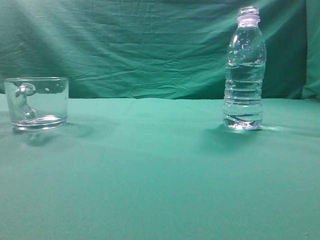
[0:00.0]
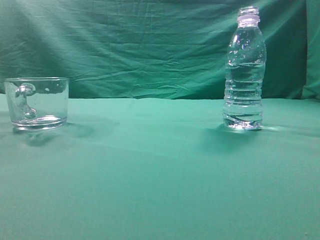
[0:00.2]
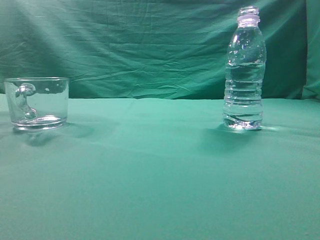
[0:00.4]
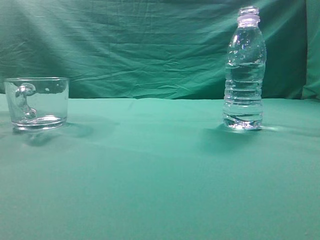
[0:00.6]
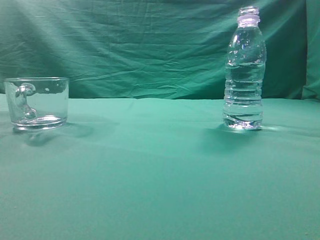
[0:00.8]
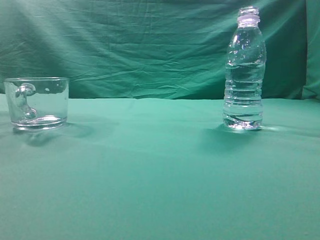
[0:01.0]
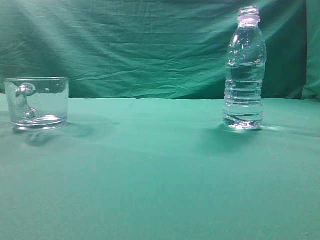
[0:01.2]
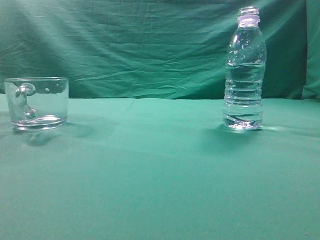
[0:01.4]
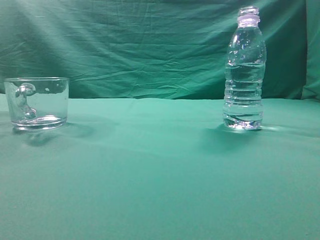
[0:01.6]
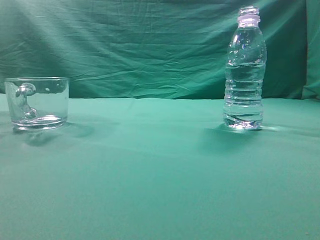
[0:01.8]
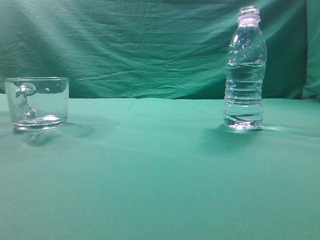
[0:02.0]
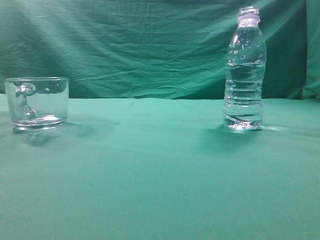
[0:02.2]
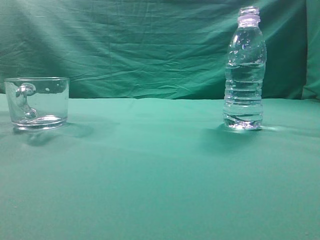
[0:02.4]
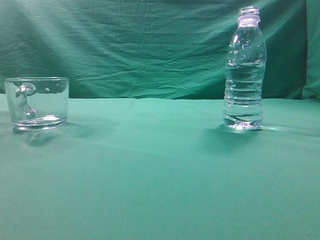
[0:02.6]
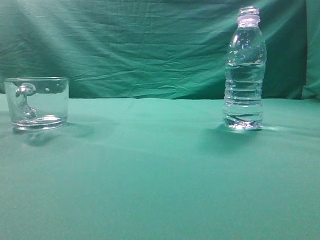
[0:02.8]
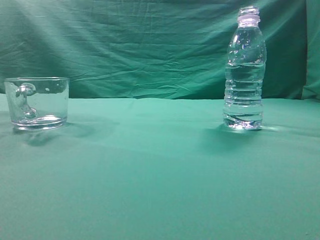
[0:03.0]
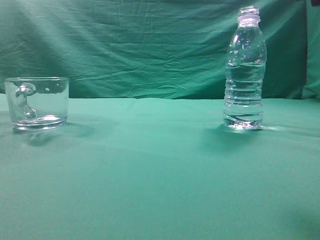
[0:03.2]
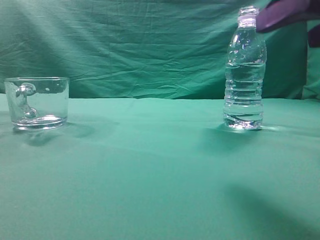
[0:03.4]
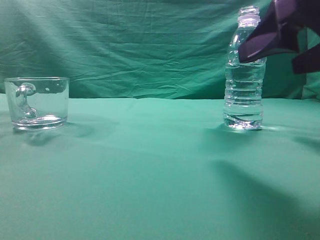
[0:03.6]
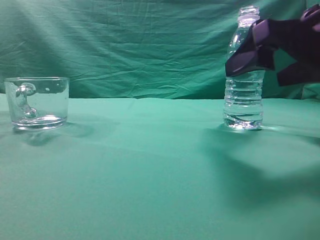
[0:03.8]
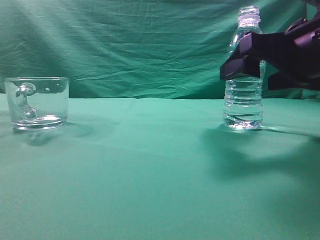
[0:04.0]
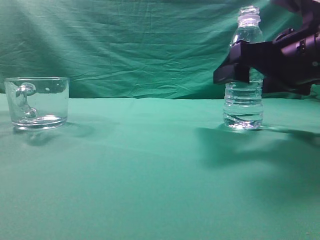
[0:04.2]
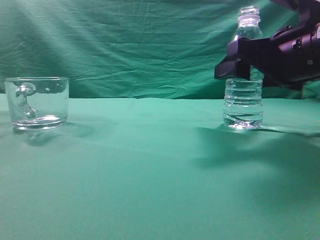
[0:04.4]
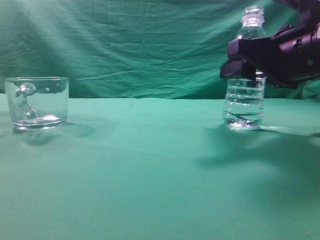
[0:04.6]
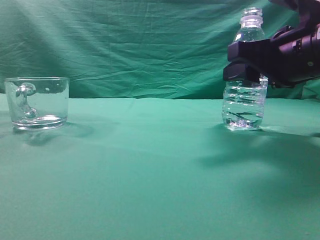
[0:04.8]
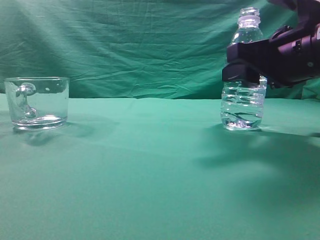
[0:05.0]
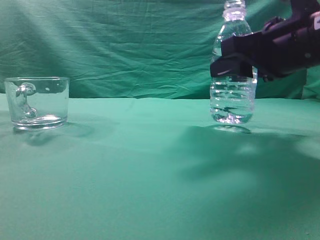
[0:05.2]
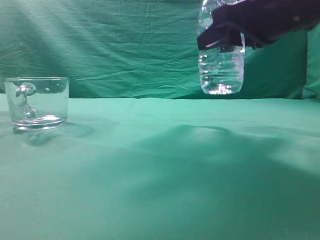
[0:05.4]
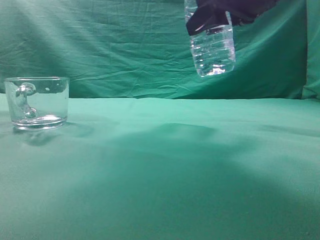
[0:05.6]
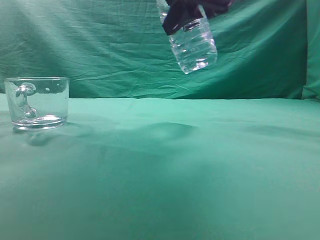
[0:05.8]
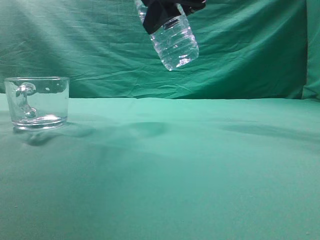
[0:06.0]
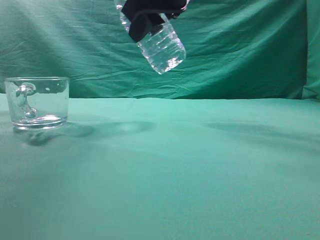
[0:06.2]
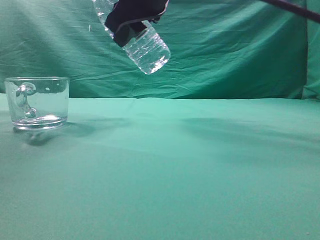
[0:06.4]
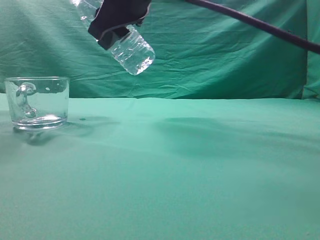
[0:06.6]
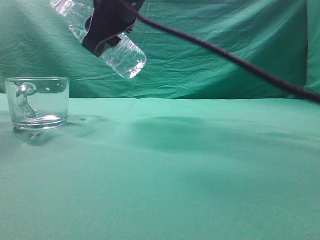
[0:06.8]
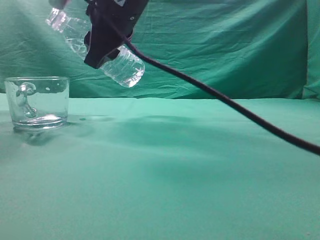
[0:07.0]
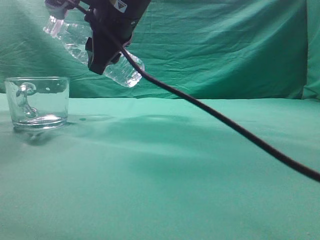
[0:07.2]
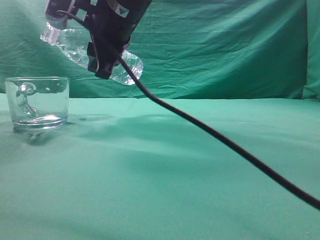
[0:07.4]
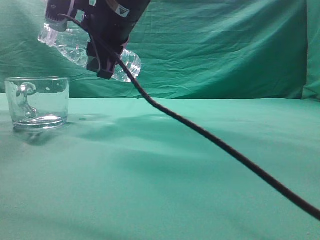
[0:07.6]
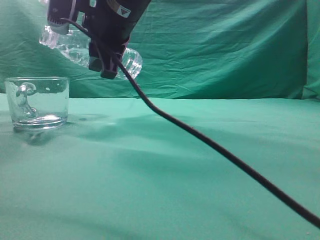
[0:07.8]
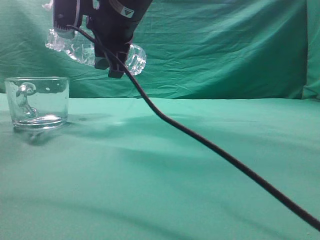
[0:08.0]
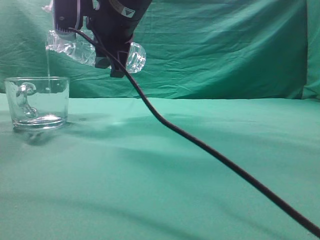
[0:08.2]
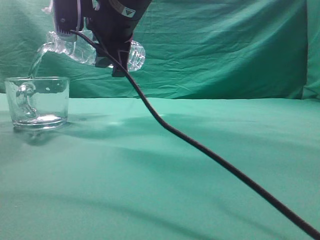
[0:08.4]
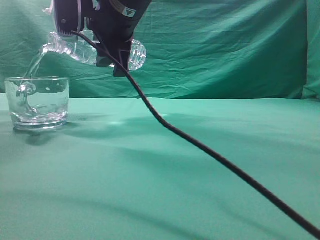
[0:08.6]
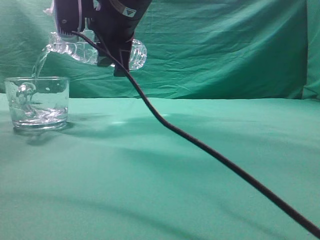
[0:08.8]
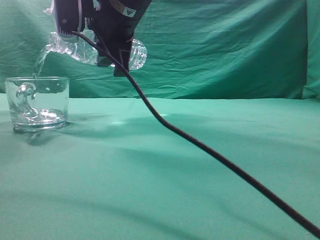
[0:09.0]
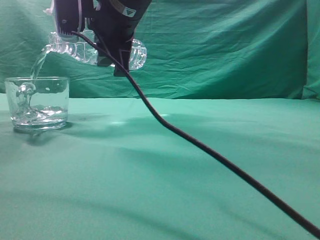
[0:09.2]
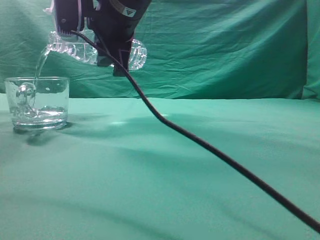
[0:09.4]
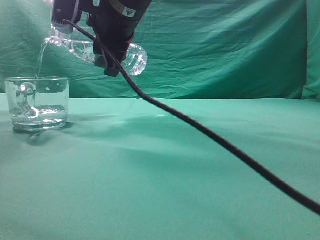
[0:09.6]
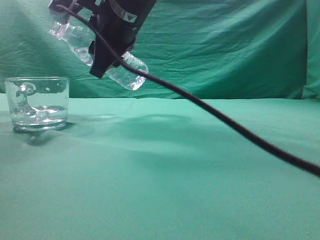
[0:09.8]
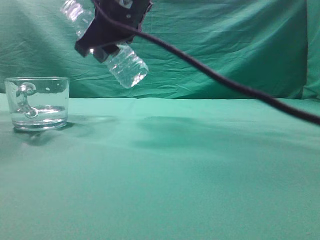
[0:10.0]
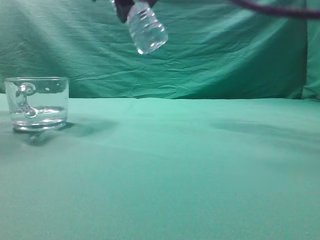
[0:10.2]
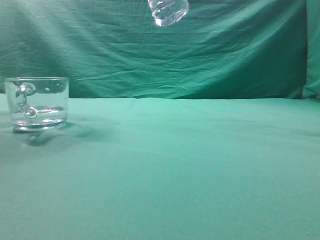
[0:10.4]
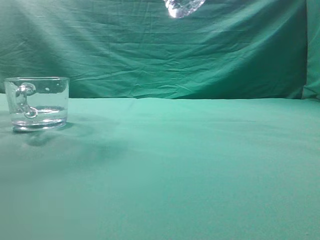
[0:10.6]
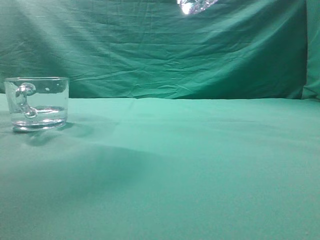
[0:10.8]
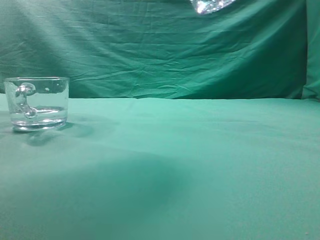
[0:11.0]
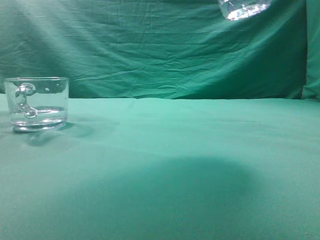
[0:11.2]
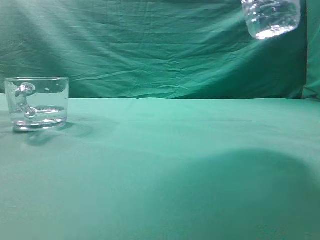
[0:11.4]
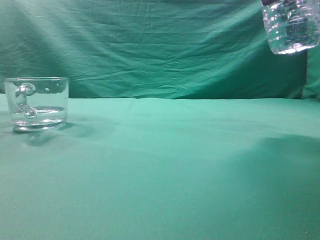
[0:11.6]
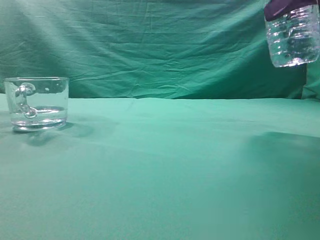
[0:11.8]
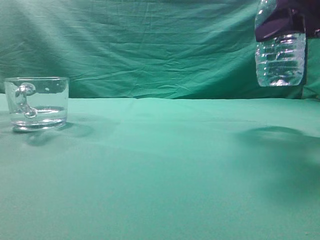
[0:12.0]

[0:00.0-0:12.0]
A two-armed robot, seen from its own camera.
Task of the whole recording: pick up the water bottle and pour the water in it into the glass.
Step, 0:00.0 to 0:05.2: Grasp the mineral water bottle.
Step, 0:05.4 to 0:09.8: Pour water into the teacup.
0:03.0 to 0:04.4: The right gripper shifts approximately 20 cm forward and downward, and opens up.
0:04.4 to 0:06.0: The right gripper shifts roughly 20 cm upward and to the left.
0:06.0 to 0:07.6: The right gripper is displaced to the left by some 10 cm.
0:07.6 to 0:09.0: There are only small adjustments of the grippers.
0:09.0 to 0:10.4: The right gripper goes approximately 15 cm upward and to the right.
0:10.4 to 0:12.0: The right gripper travels to the right and downward by approximately 25 cm.

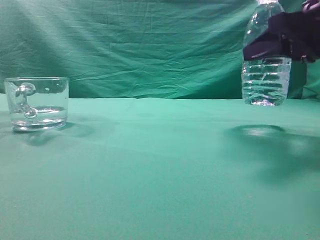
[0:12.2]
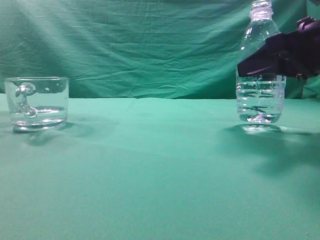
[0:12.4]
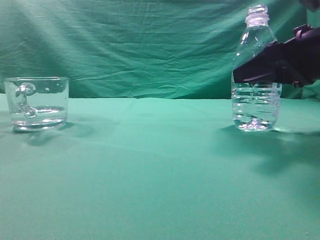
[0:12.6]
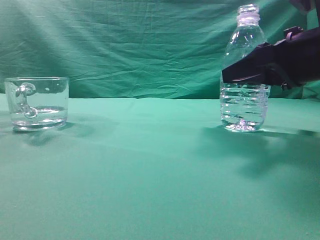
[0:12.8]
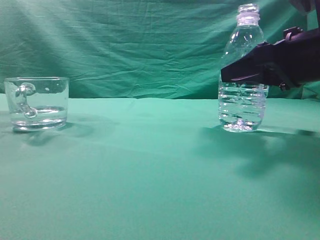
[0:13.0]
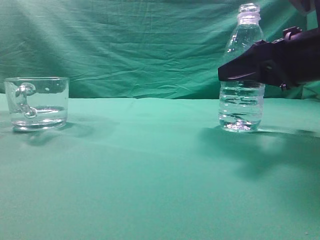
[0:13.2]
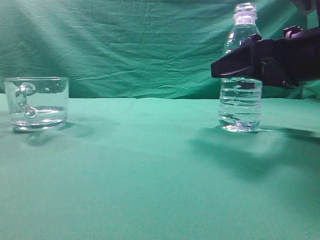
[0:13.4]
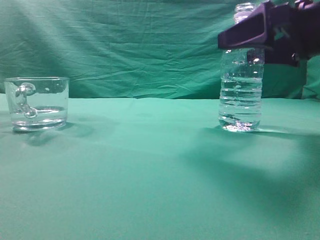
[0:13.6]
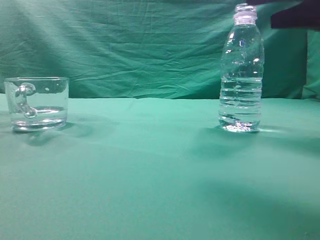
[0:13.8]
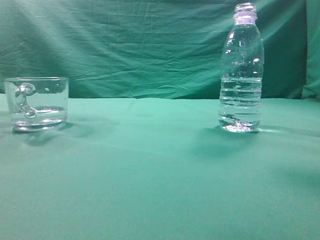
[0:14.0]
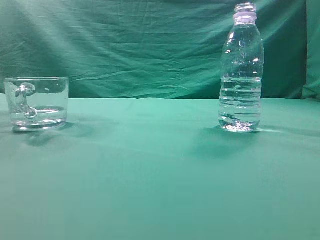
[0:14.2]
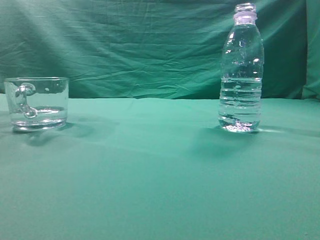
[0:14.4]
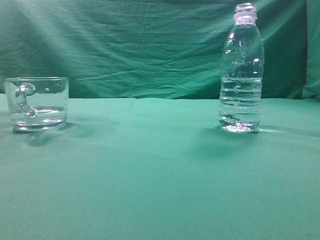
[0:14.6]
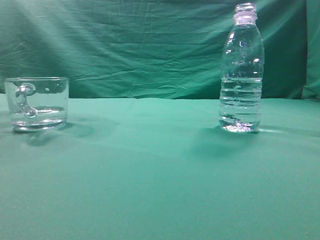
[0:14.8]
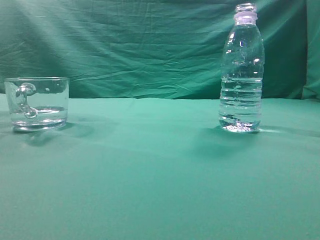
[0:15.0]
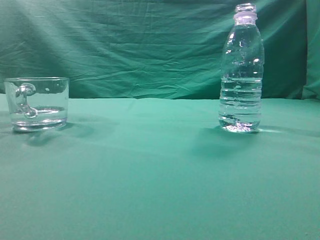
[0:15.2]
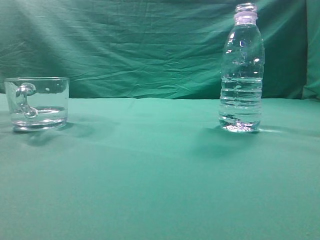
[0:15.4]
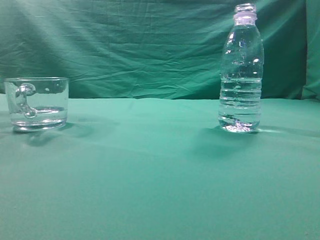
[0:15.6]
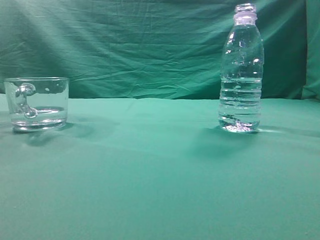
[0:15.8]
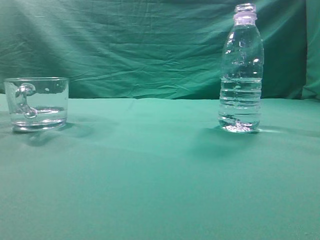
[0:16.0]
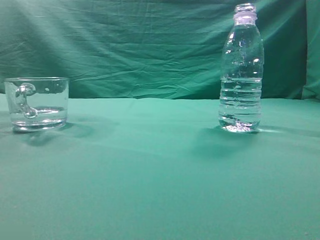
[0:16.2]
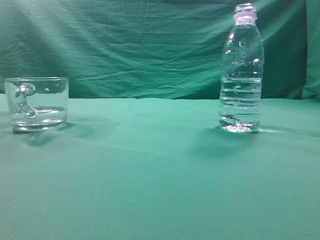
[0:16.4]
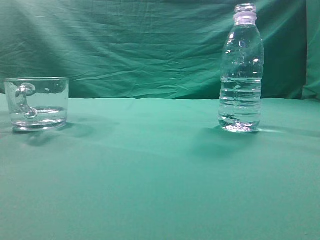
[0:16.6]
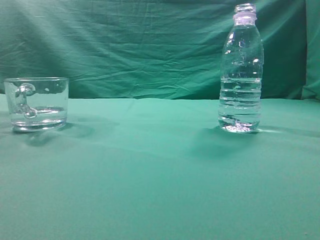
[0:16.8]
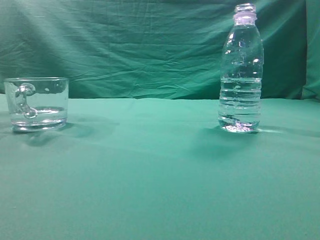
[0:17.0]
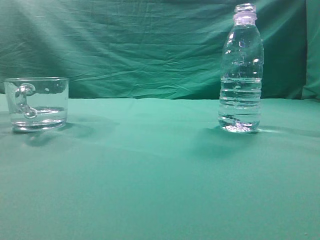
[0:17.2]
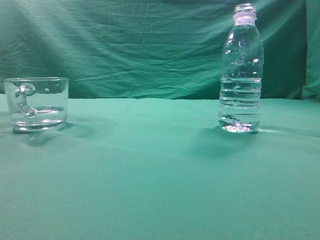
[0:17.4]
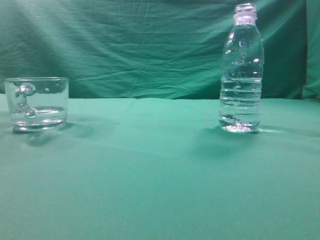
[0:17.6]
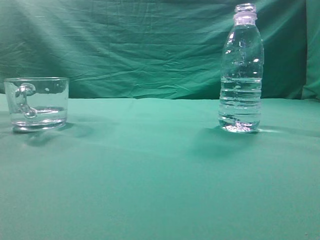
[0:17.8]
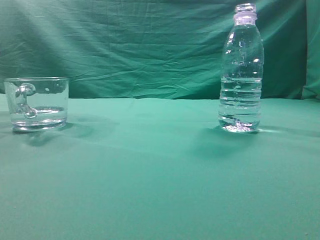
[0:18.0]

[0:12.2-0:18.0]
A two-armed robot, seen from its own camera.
Task of the whole recording: pick up the water bottle and pour the water in it into the glass.
0:12.2 to 0:13.6: The right gripper opens up.
0:13.6 to 0:15.0: The right gripper heads upward and backward, covering some 30 cm, and closes.
